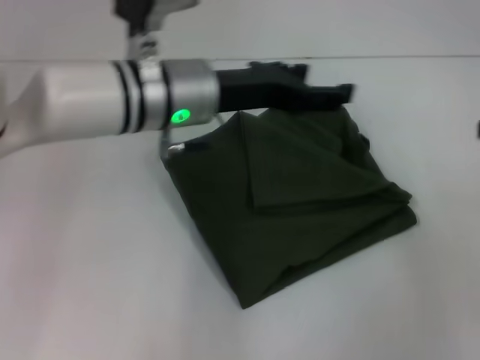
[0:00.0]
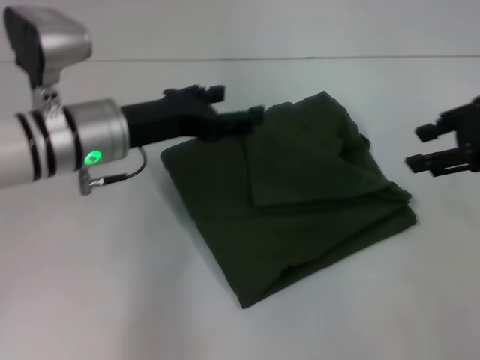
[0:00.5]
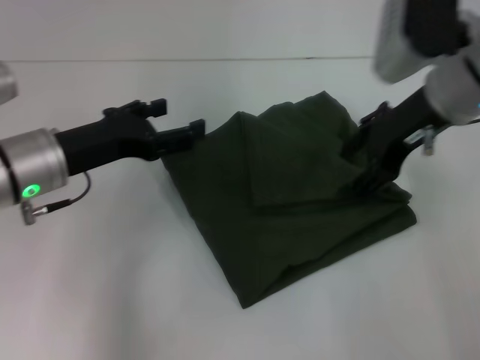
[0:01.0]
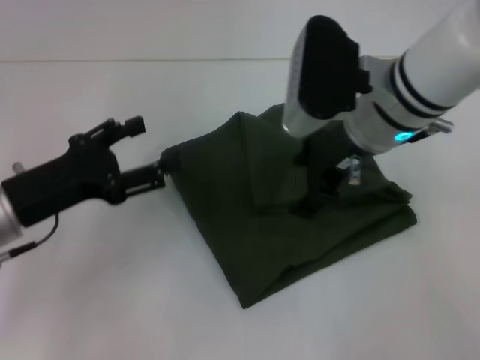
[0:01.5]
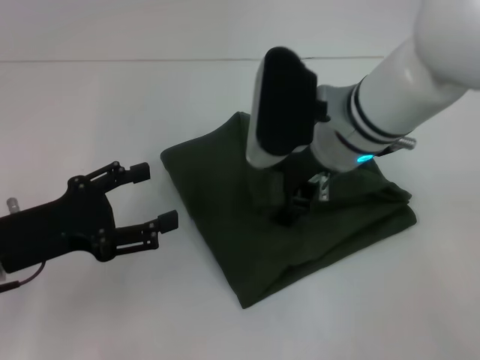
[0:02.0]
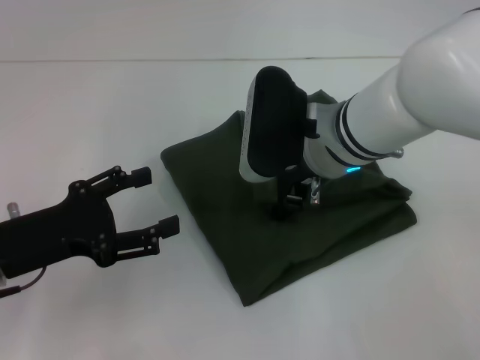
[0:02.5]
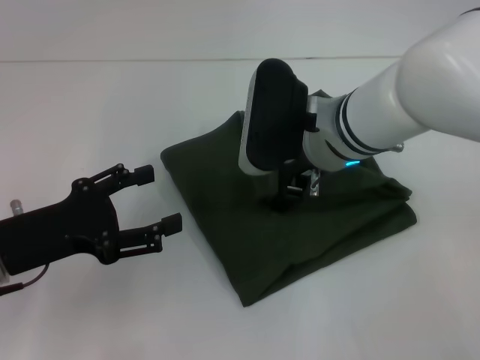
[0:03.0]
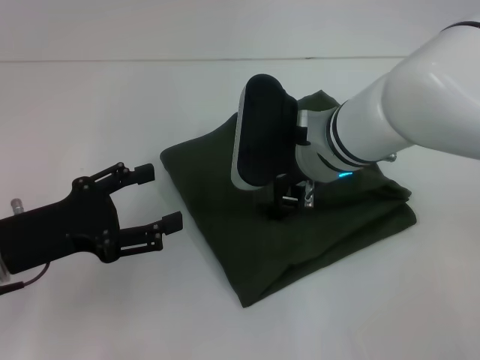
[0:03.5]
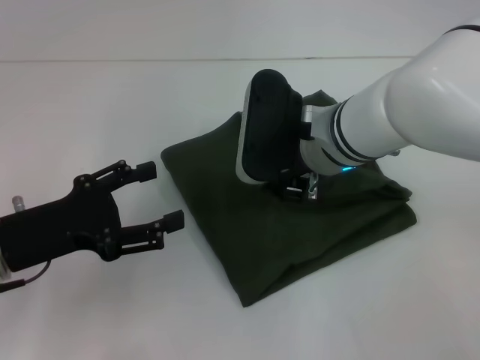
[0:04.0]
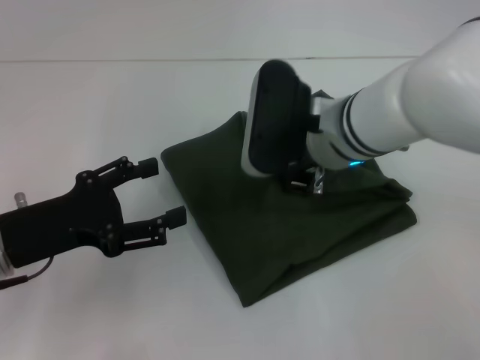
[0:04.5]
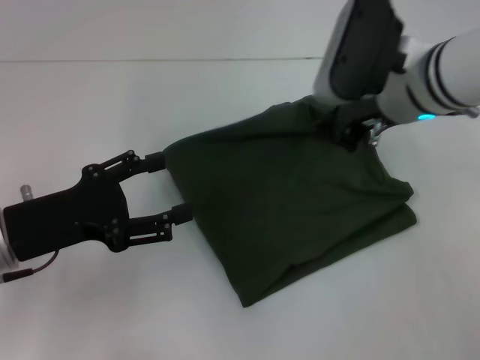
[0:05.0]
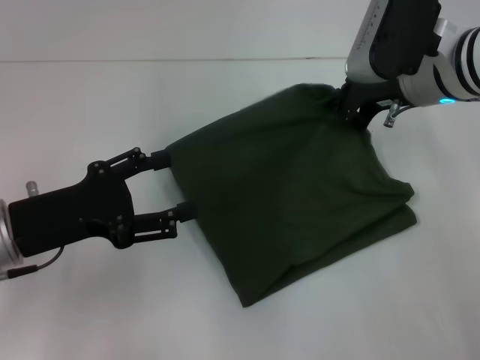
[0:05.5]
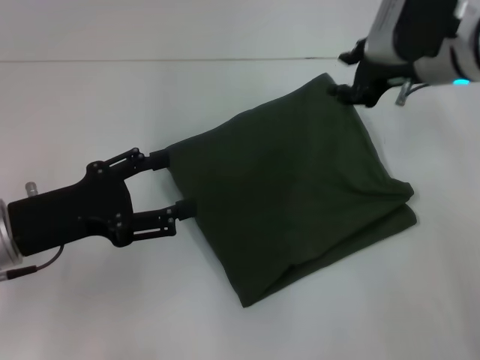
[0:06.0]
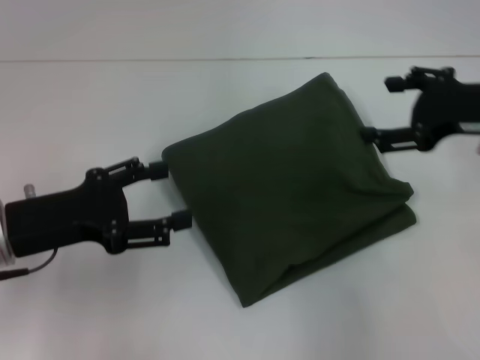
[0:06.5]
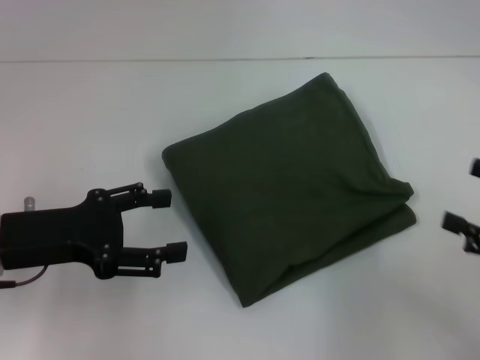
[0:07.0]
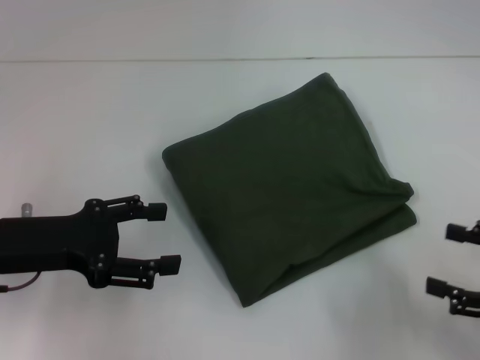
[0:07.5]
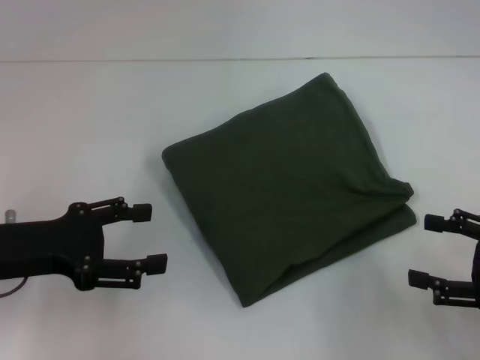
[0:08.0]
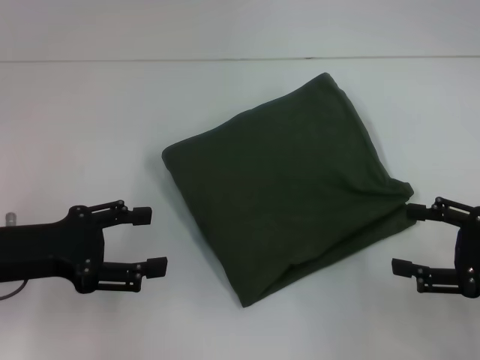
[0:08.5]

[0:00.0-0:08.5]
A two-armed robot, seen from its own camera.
0:00.0 to 0:02.0: The left gripper shifts about 25 cm to the left, backward and downward. Meanwhile the right gripper shifts roughly 30 cm to the left, and opens.
0:02.0 to 0:04.0: The right gripper closes up.
0:04.0 to 0:06.5: The right gripper travels to the right by about 20 cm, and opens its fingers.
0:06.5 to 0:08.5: The right gripper shifts roughly 15 cm backward, downward and to the right.
